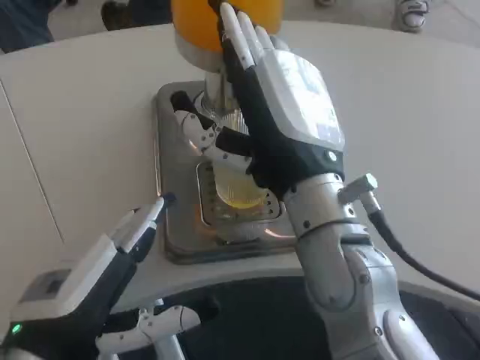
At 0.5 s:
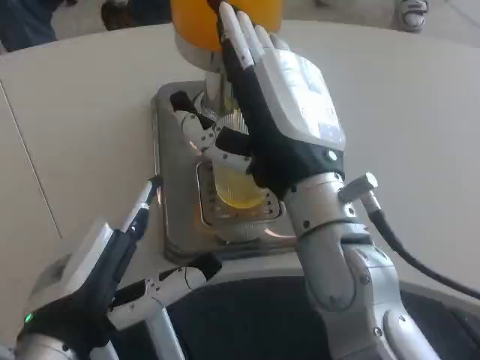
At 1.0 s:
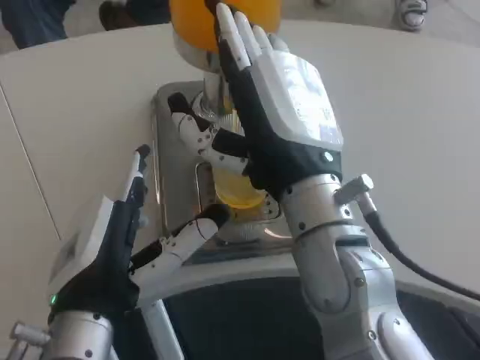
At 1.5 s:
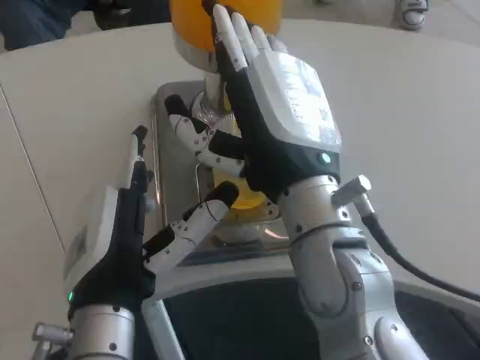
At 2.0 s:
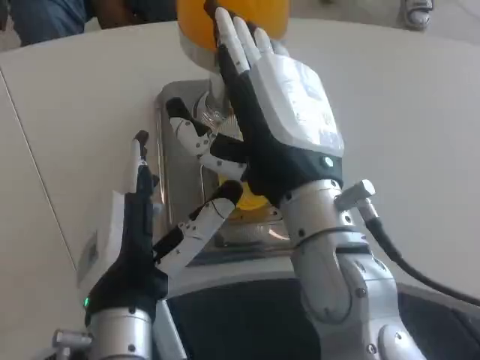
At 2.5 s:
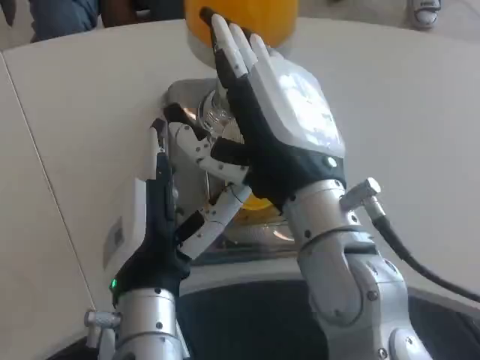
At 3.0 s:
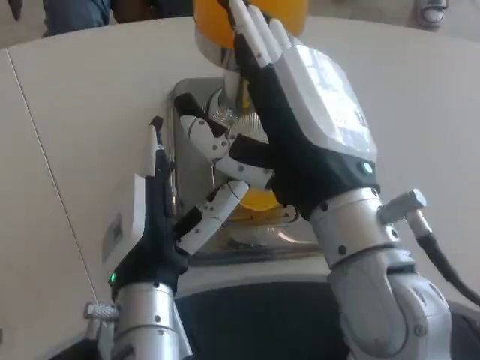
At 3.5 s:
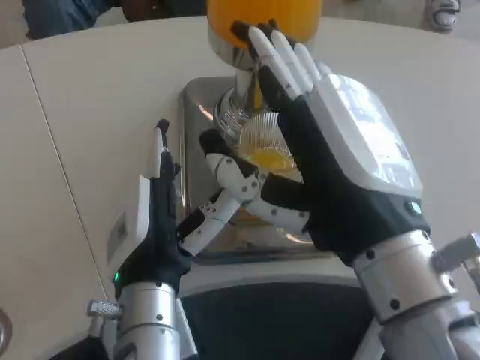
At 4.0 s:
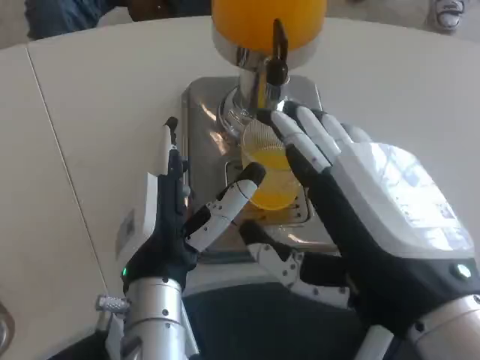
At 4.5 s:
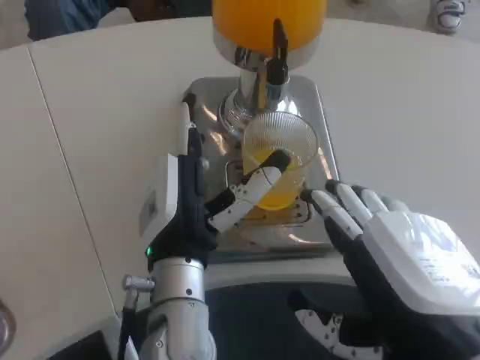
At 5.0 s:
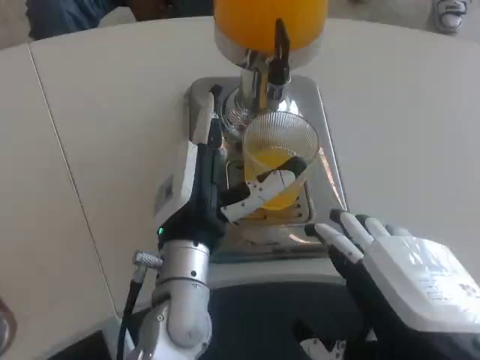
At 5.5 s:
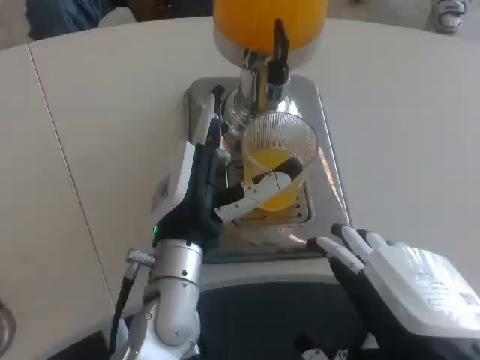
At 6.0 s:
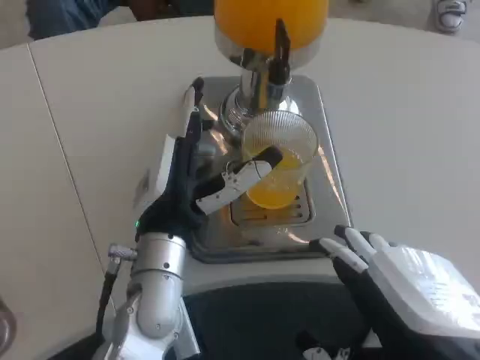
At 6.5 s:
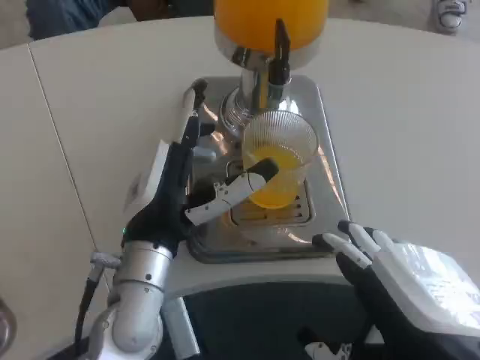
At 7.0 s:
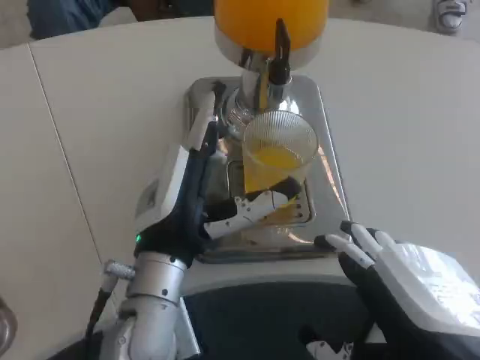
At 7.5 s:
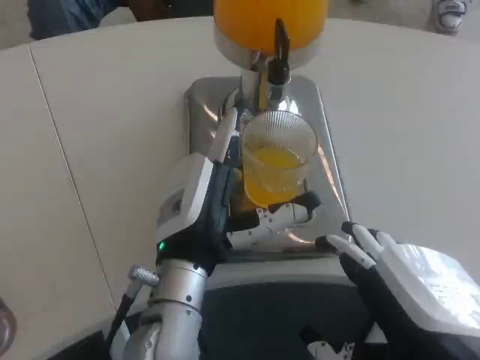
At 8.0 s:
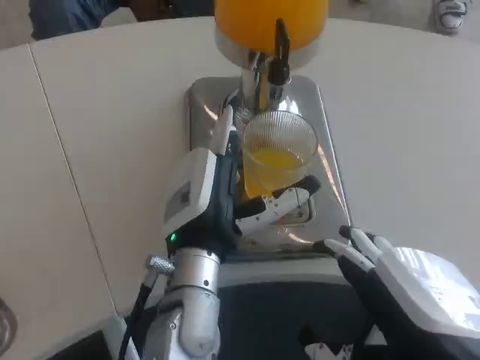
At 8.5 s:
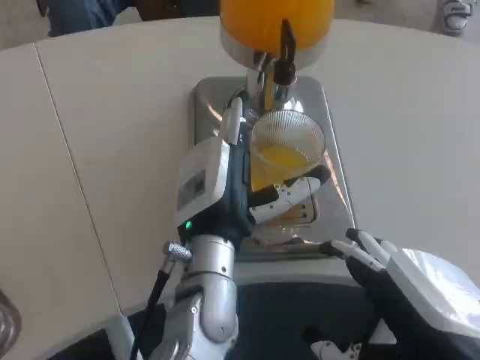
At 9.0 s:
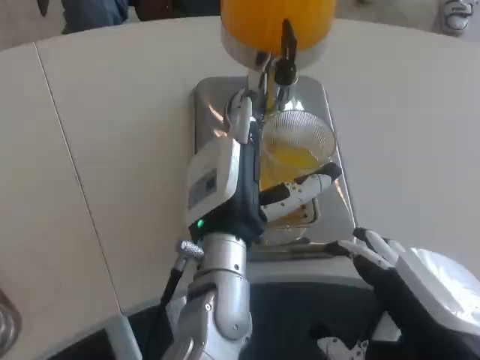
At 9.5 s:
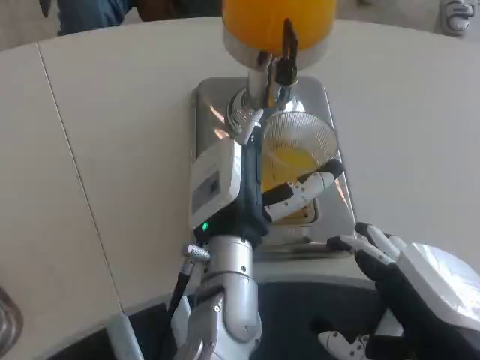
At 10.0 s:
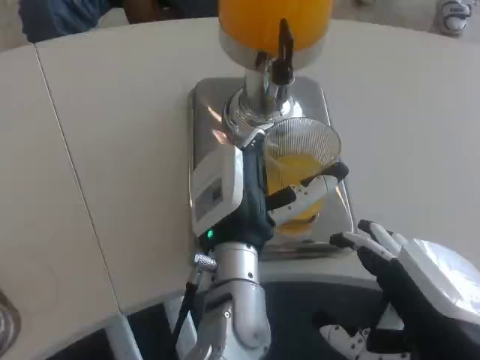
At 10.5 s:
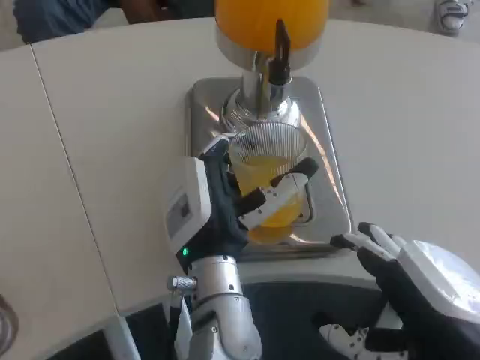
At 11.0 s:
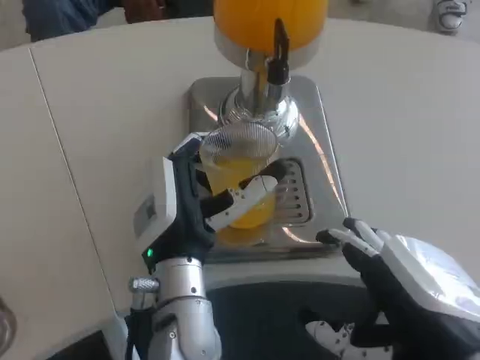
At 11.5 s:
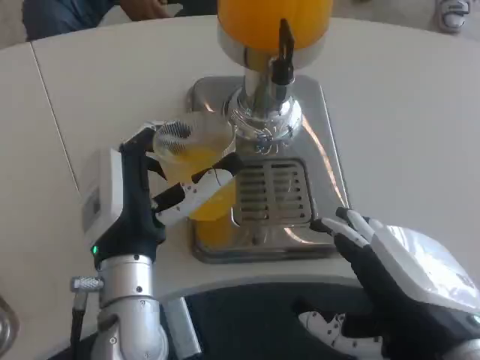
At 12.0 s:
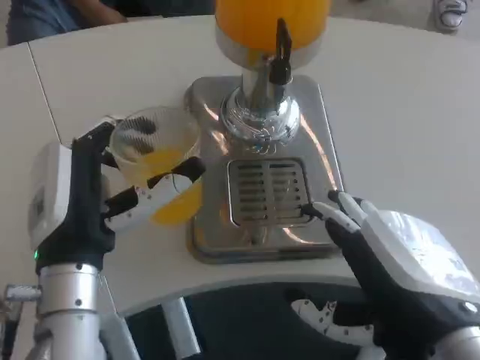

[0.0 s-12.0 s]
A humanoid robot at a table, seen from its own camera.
Task of the whole recording: Grasp the cup under the faucet to collect the drink, then remove the cup.
0.0 to 2.0 s: The left hand goes roughly 10 cm to the right.
2.0 to 4.0 s: The right hand goes roughly 15 cm backward and to the right.
4.0 to 6.0 s: The left hand moves forward, about 5 cm.
6.0 to 8.0 s: The hands stay close to where they were, moving slightly.
10.0 to 12.0 s: The left hand travels to the left by approximately 15 cm.

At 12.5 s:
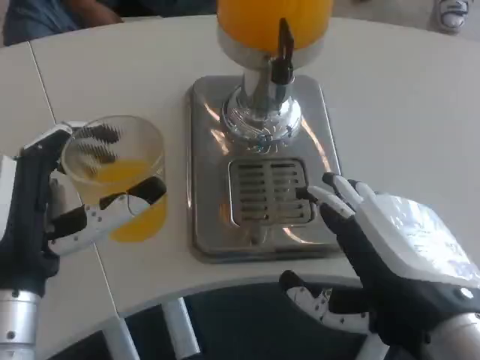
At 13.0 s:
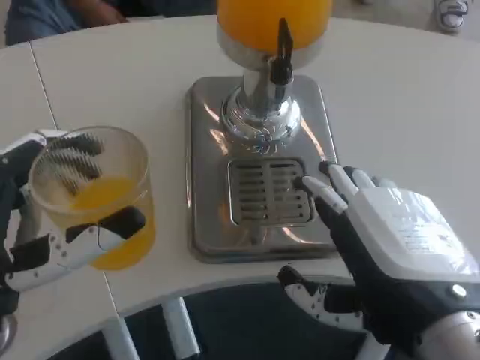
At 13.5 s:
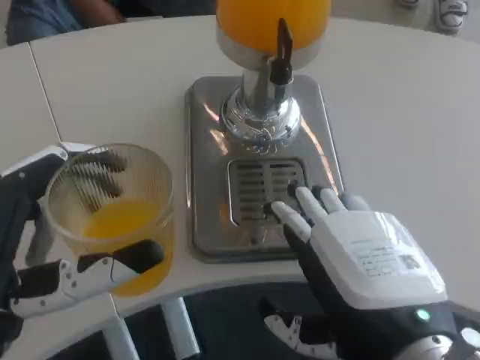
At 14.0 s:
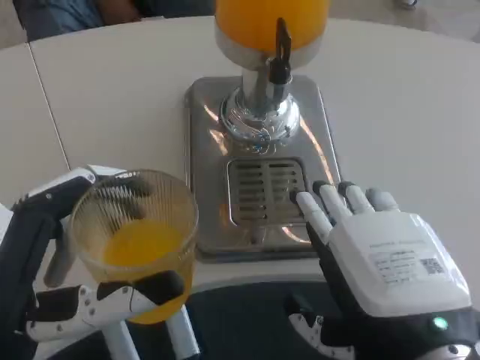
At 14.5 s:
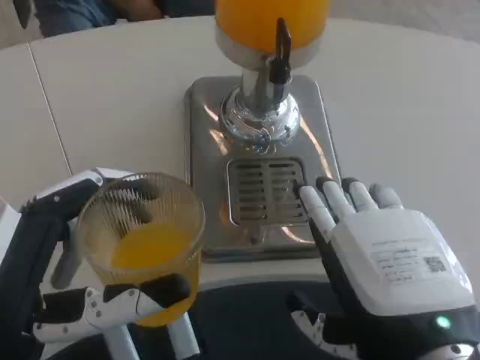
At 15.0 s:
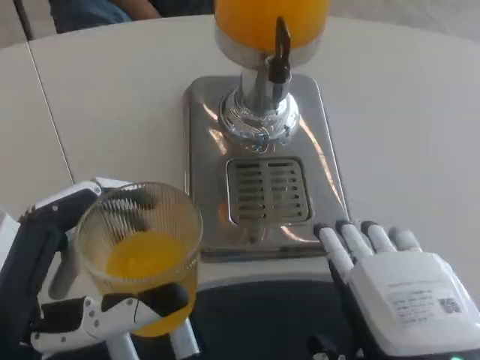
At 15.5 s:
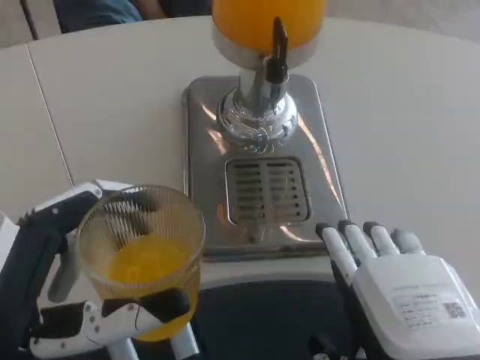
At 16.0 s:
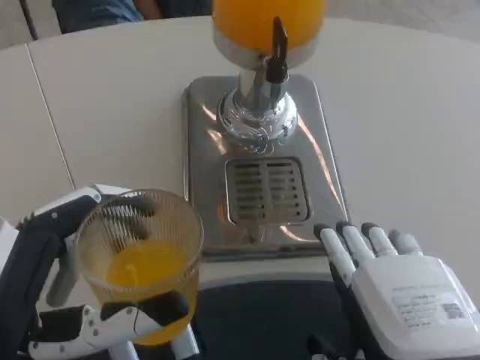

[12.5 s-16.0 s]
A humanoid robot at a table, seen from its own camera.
Task of the whole recording: Grasp the cup under the faucet to collect the drink, then remove the cup.
12.5 to 14.5 s: The left hand goes some 5 cm backward.

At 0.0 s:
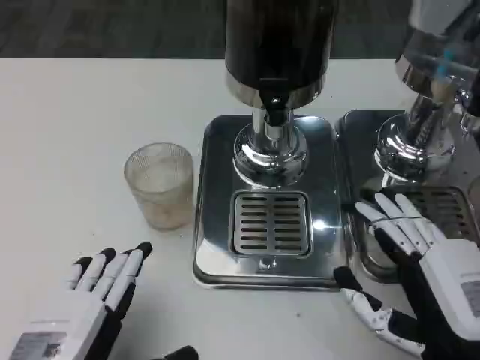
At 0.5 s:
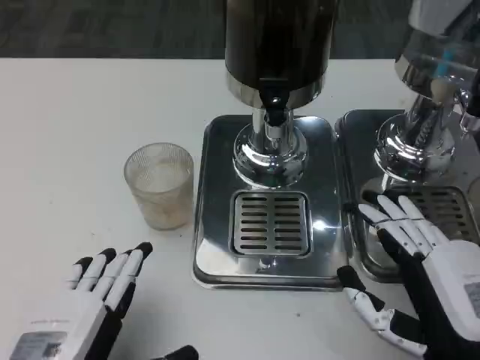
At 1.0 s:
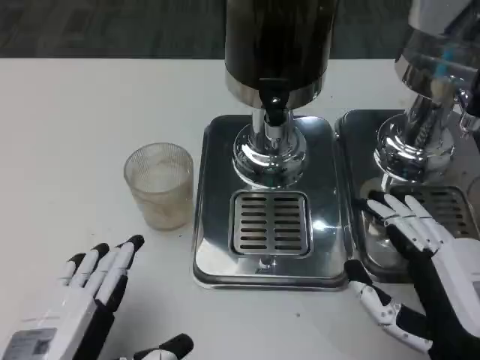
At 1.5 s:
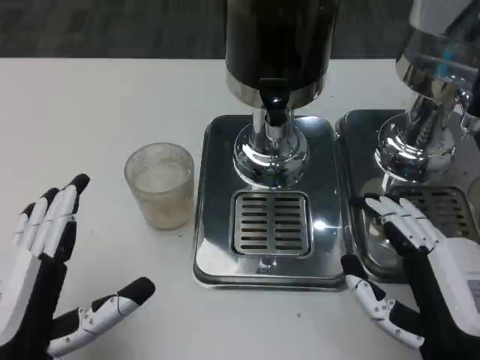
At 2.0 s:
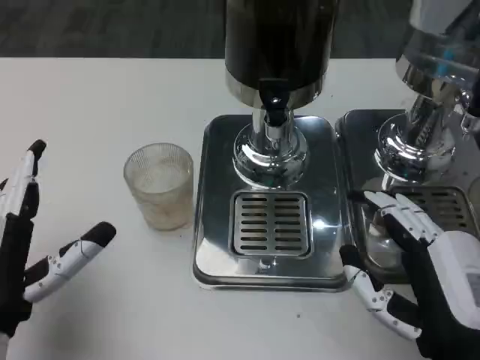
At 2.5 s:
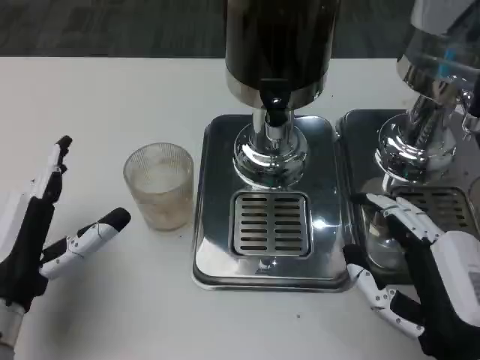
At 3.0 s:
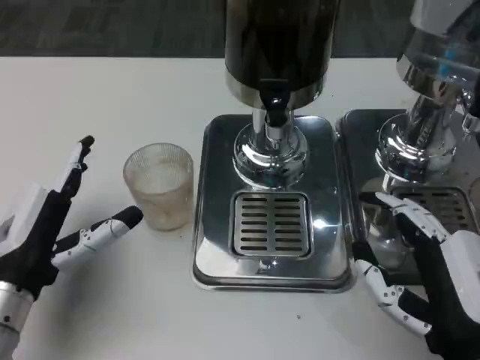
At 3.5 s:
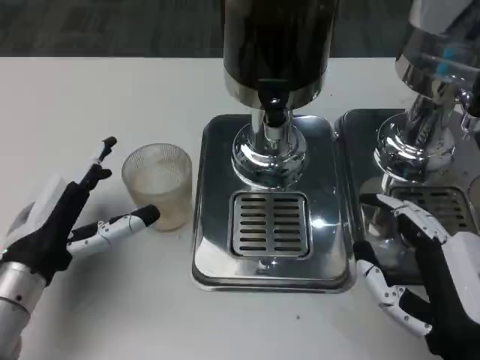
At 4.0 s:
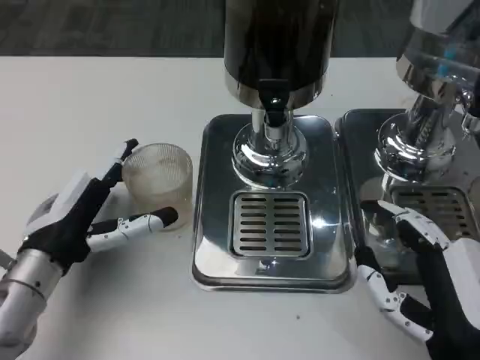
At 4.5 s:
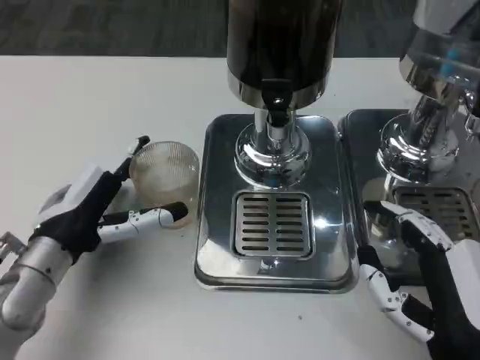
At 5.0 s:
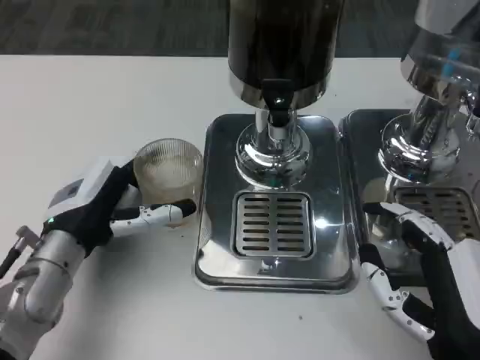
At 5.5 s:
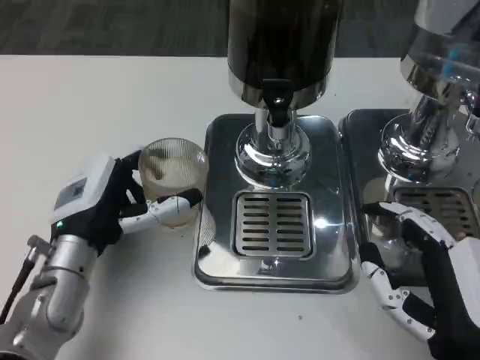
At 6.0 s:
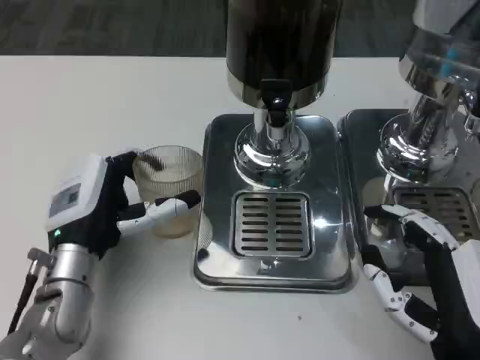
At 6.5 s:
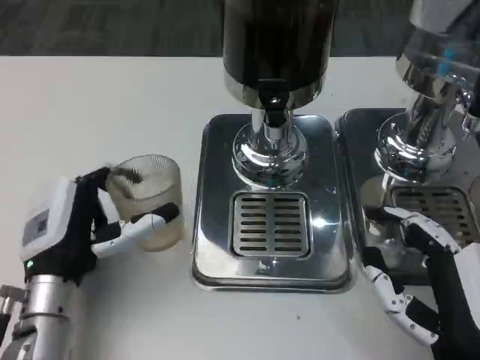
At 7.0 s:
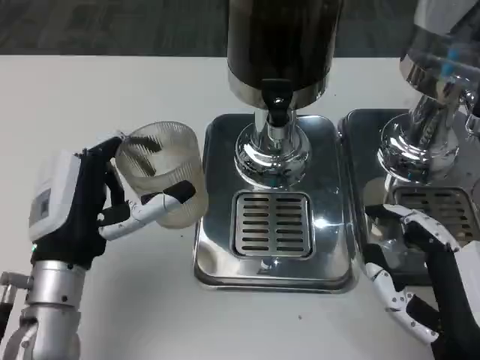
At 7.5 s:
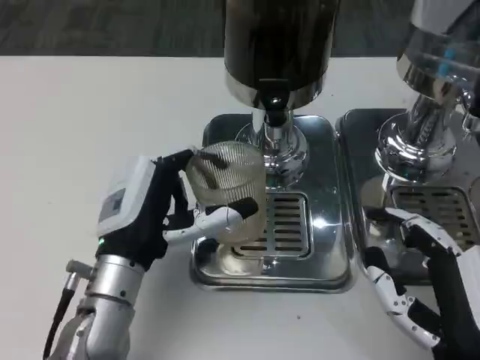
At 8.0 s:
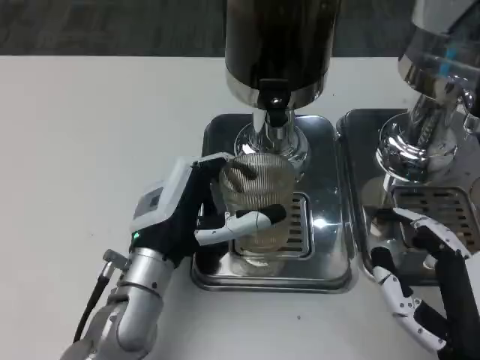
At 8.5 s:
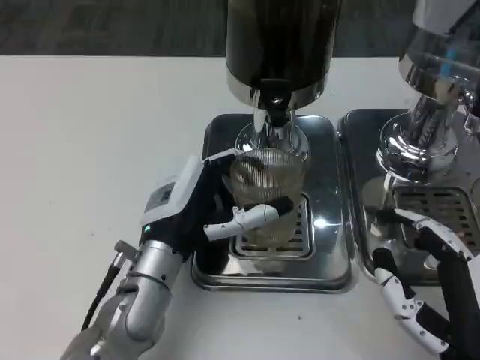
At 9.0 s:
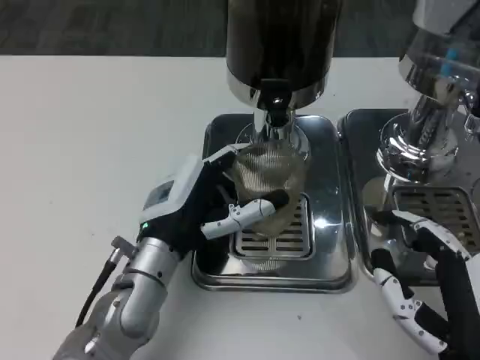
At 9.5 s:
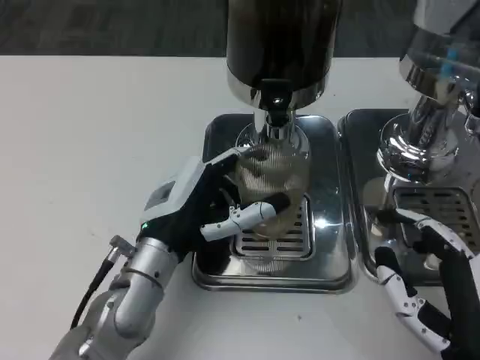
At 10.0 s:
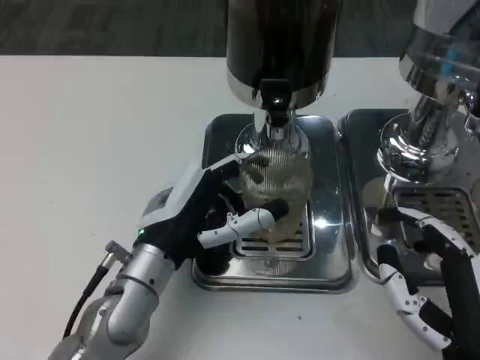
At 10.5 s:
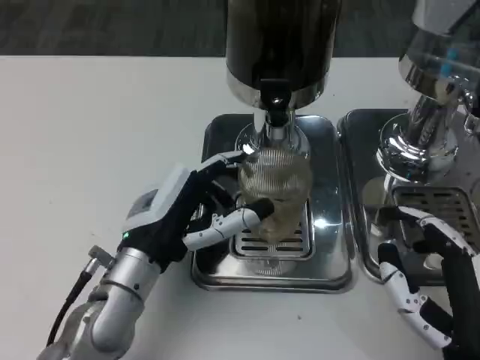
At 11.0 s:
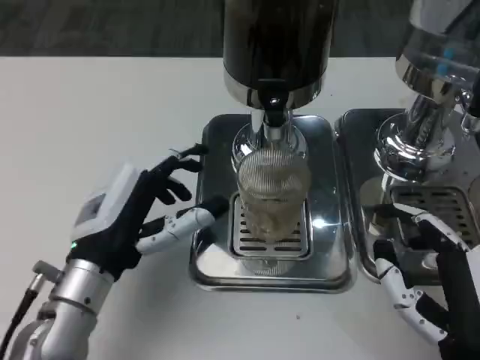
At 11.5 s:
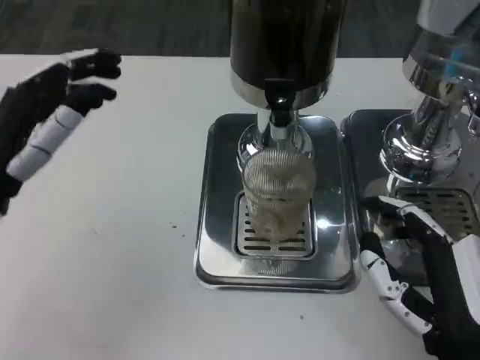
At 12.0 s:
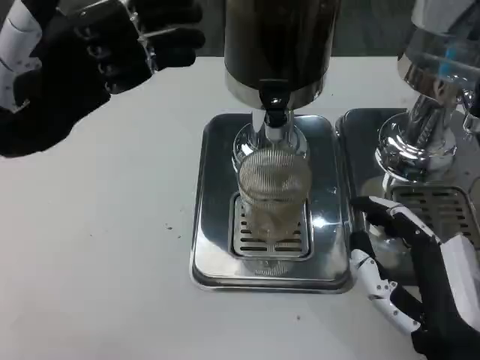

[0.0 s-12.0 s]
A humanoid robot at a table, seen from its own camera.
Task of the whole recording: Grasp the cup under the faucet to collect the drink, then remove the cup.
0.0 to 2.0 s: The left hand travels forward by approximately 5 cm.
2.0 to 4.0 s: The left hand travels forward by approximately 10 cm.
4.0 to 6.0 s: The left hand shifts by about 5 cm.
6.0 to 8.0 s: The left hand shifts roughly 5 cm to the right.
8.0 to 10.0 s: The hands stay close to where they were, moving slightly.
10.0 to 12.0 s: The left hand shifts about 20 cm upward and to the left.
